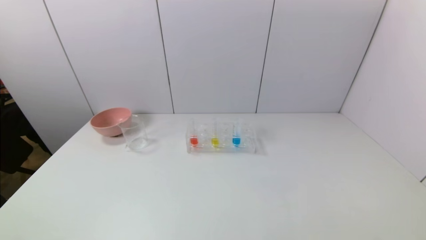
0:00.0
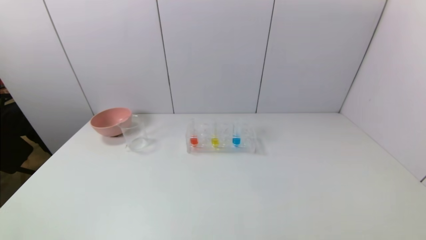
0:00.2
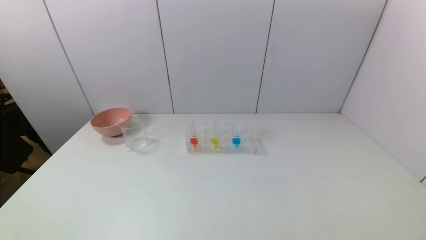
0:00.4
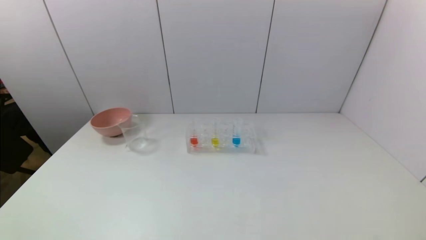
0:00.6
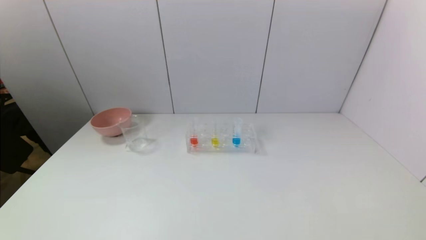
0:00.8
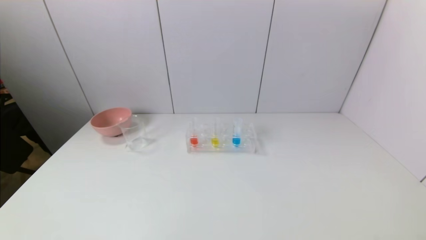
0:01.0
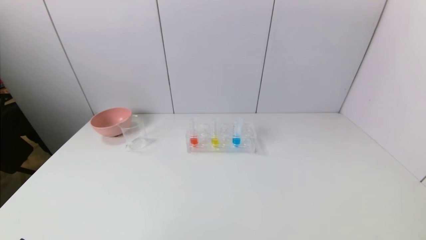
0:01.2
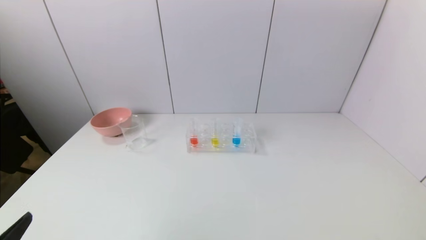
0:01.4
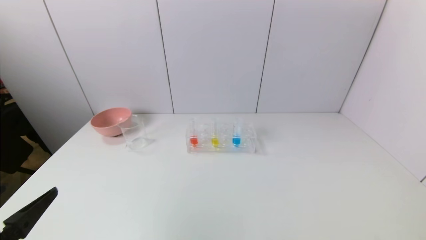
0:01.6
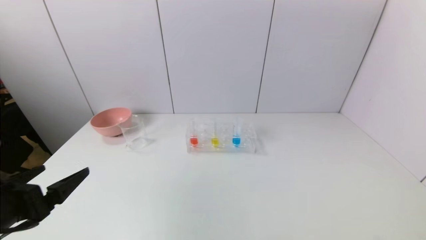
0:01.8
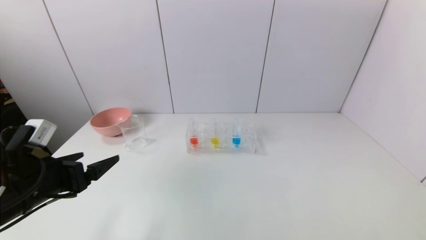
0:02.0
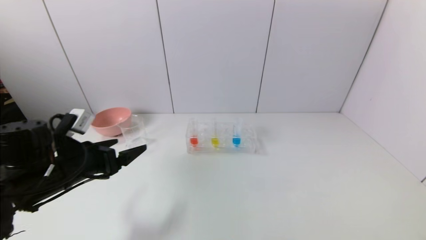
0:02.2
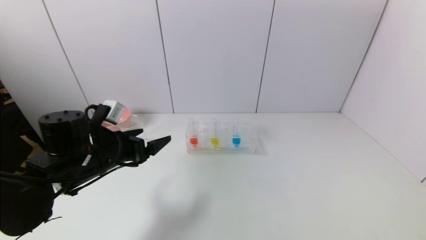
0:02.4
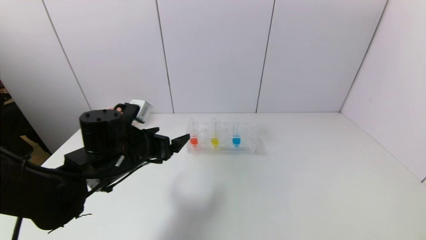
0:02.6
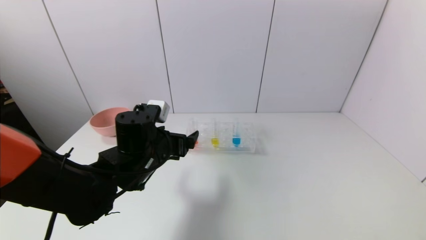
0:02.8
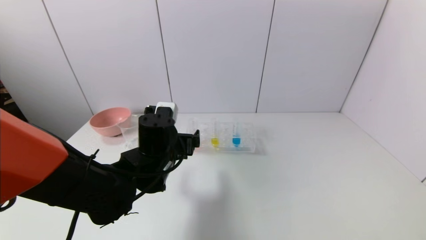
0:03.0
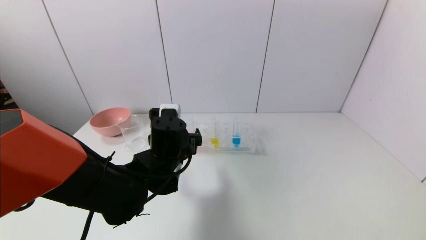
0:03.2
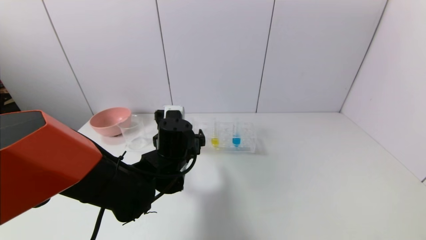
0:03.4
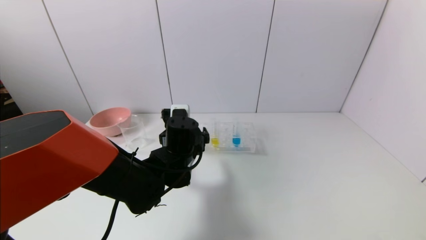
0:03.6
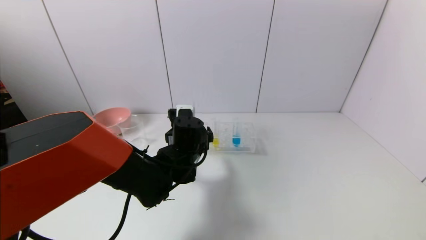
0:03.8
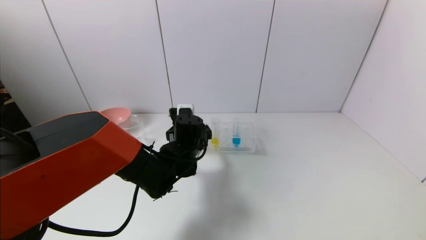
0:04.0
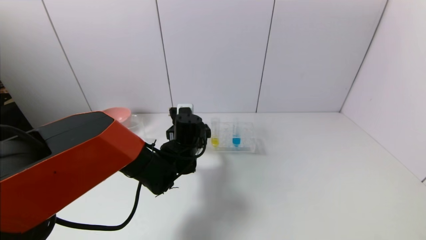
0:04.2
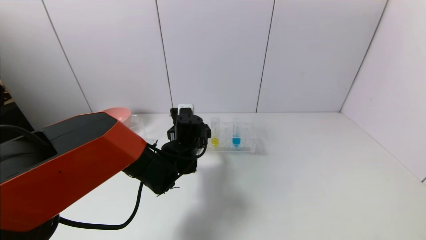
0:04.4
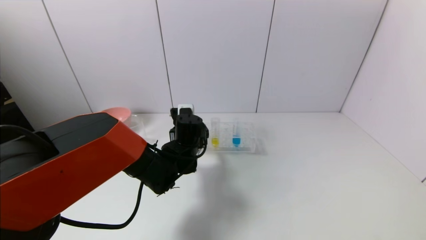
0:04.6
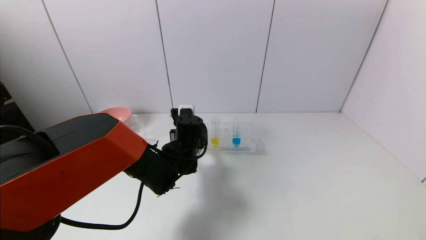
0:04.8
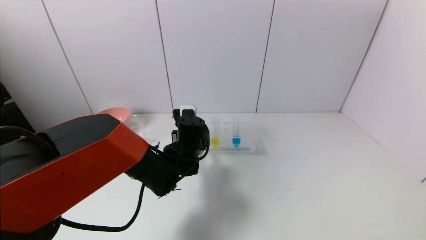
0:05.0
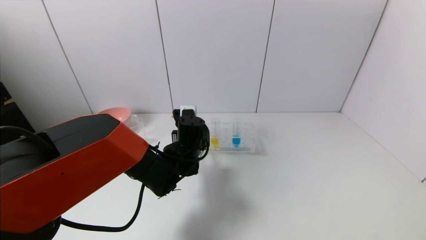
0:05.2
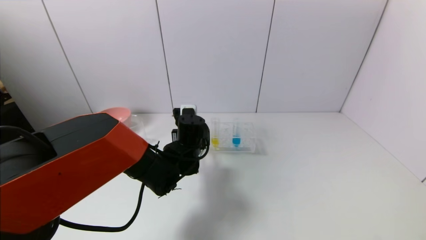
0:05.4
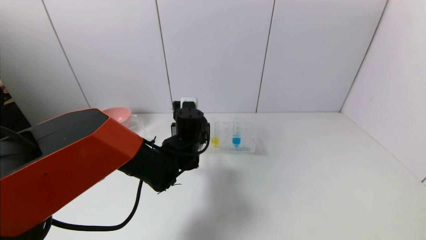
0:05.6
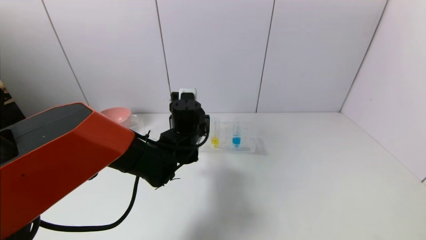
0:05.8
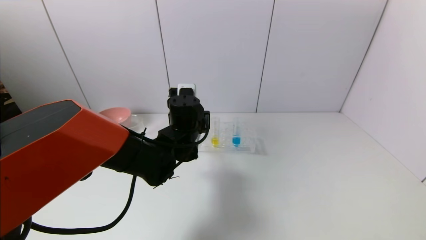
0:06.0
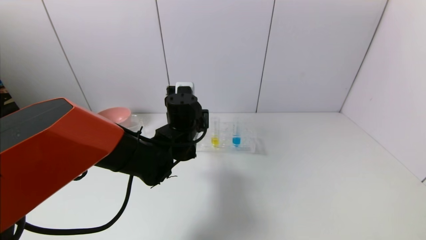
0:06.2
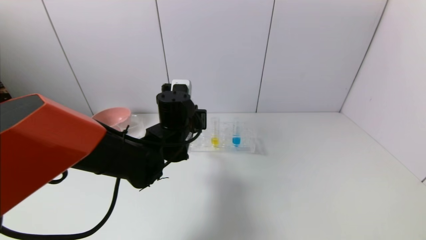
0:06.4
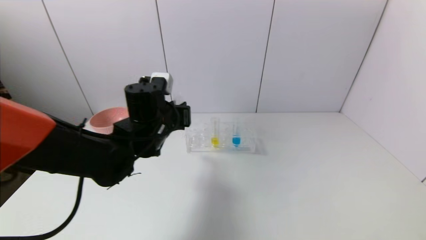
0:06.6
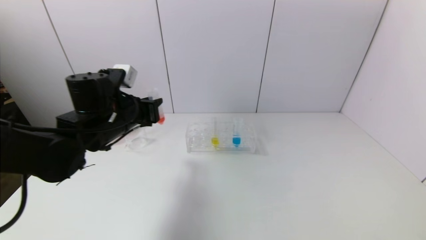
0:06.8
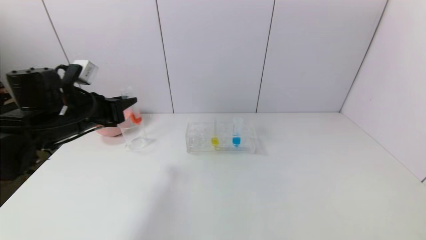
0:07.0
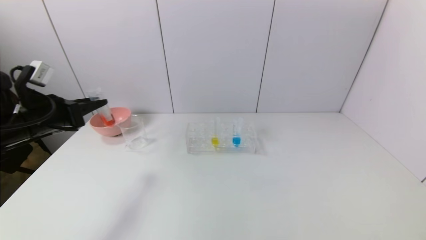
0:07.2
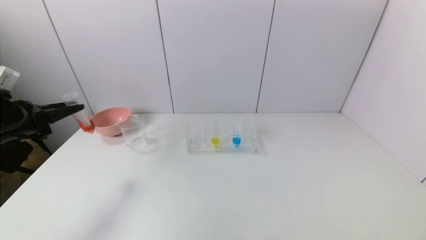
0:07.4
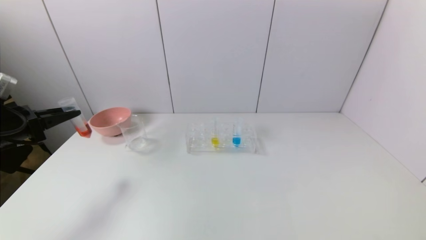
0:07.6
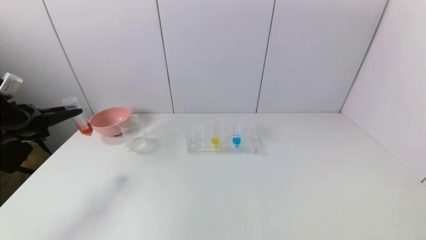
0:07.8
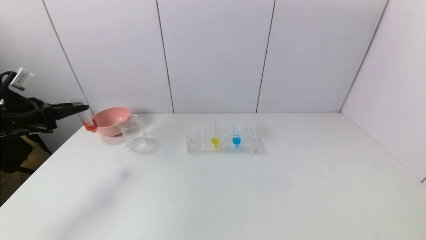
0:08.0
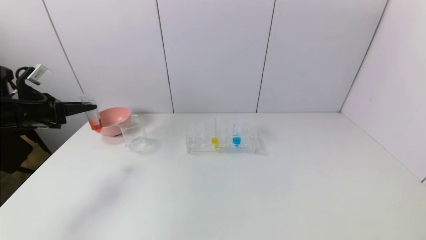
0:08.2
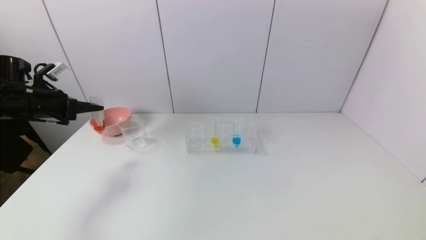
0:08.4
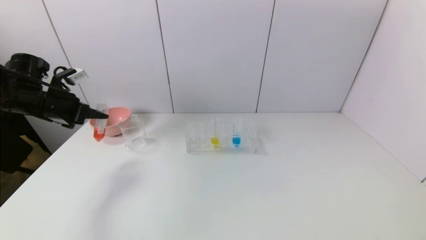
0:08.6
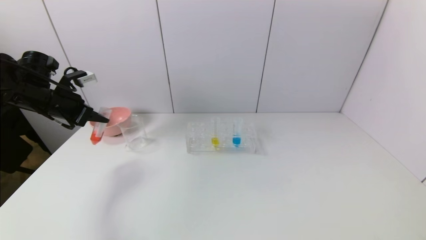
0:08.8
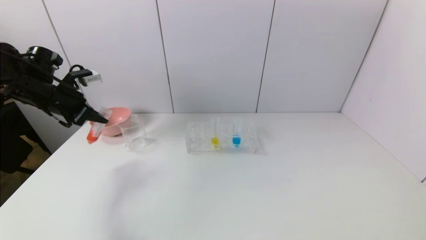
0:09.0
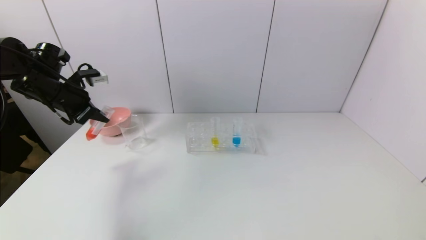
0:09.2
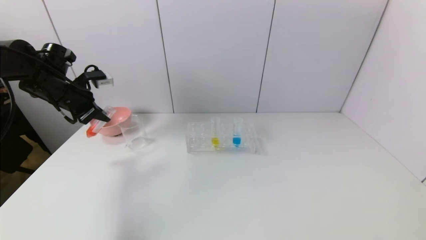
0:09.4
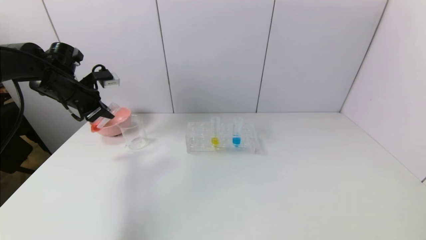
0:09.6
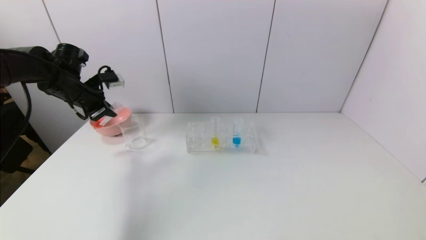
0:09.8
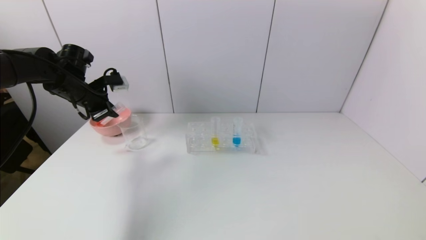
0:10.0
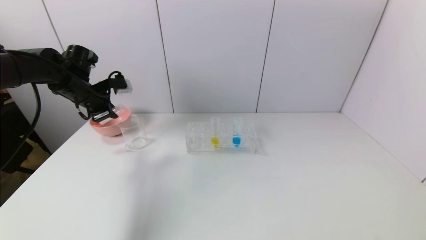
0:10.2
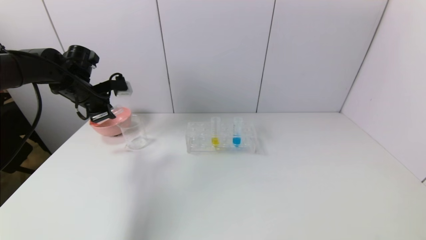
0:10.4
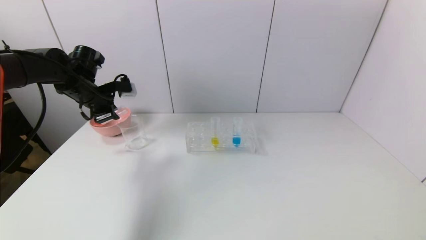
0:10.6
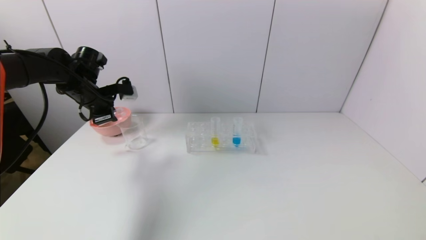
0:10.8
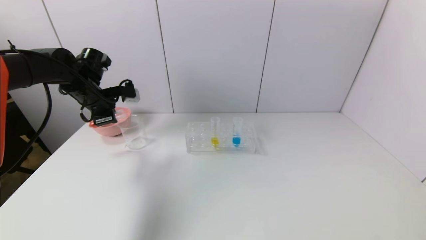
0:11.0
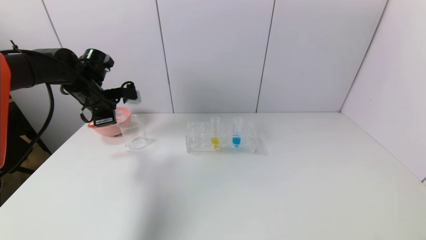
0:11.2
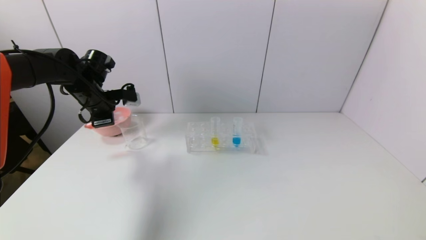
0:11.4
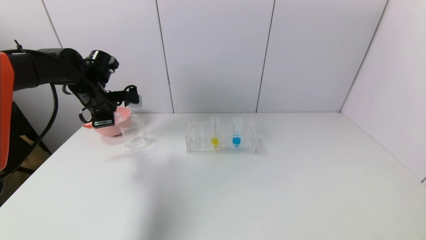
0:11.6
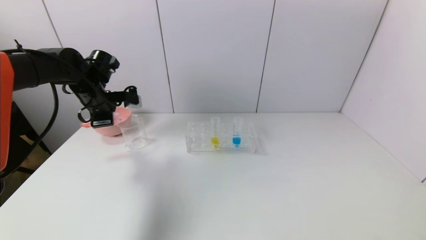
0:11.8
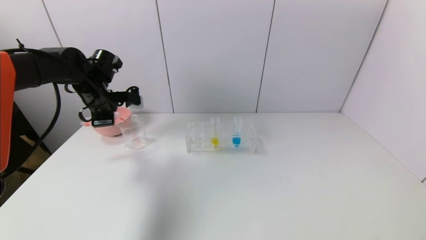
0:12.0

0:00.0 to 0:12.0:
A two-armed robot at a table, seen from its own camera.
Task of the whole recording: pick up the test tube with red pigment and the test tube with blue pigment by grippers and pour them into the container.
Step, 0:00.0 to 0:05.0: Grasp the red reagent with the left gripper.
0:00.0 to 0:01.6: The left gripper shifts about 15 cm upward and forward.
0:01.6 to 0:03.0: The left gripper goes some 30 cm forward and to the right.
0:03.0 to 0:04.4: The left gripper moves forward, some 10 cm.
0:04.4 to 0:06.0: The left gripper travels upward by roughly 5 cm, and closes its fingers.
0:06.0 to 0:07.6: The left gripper goes roughly 35 cm to the left.
0:07.6 to 0:09.0: The left gripper travels forward and to the right by roughly 10 cm.
0:09.0 to 0:10.4: The left gripper changes place by approximately 5 cm.

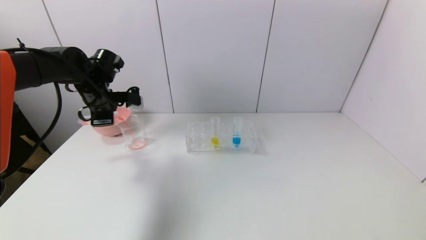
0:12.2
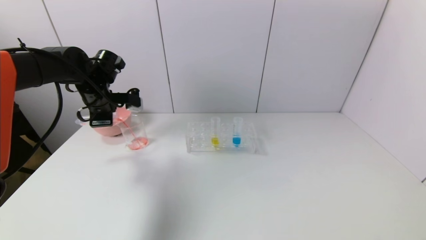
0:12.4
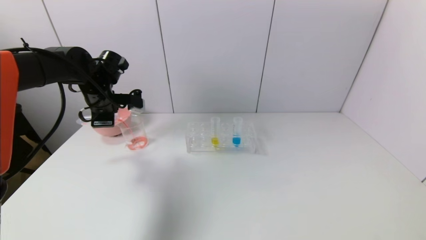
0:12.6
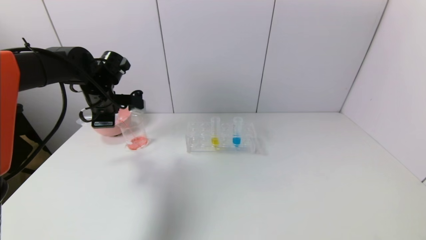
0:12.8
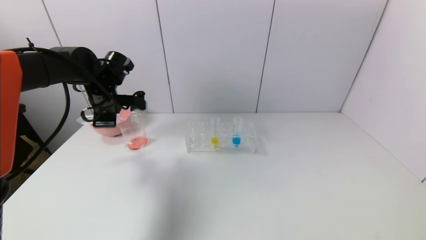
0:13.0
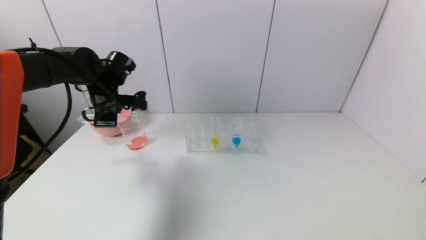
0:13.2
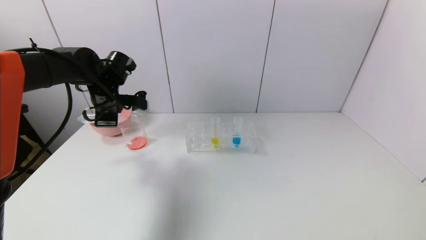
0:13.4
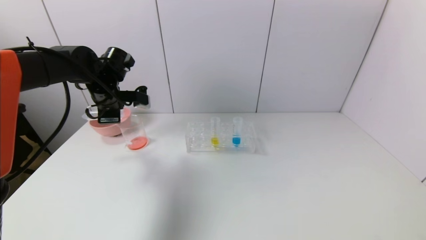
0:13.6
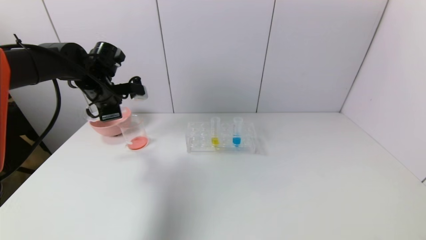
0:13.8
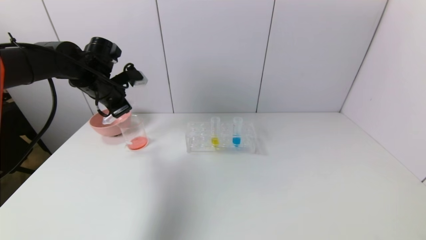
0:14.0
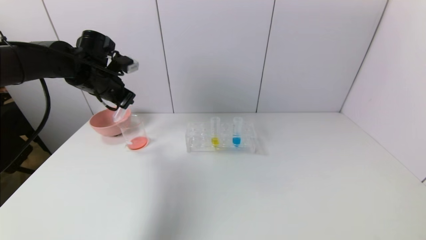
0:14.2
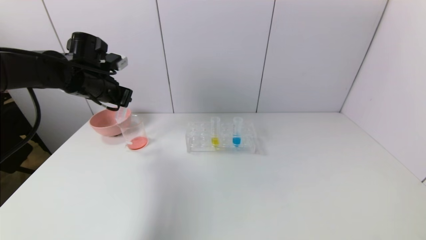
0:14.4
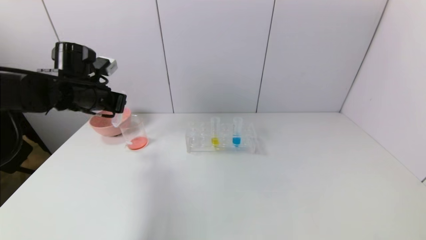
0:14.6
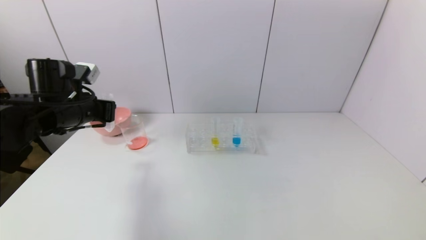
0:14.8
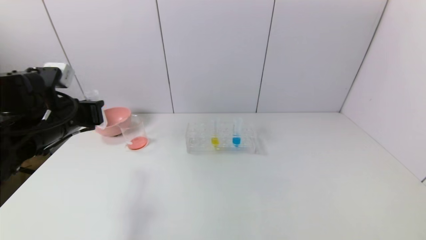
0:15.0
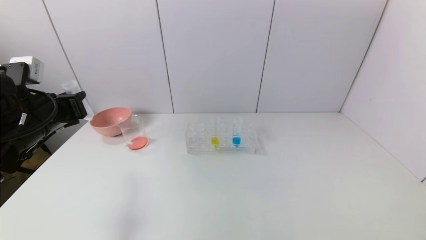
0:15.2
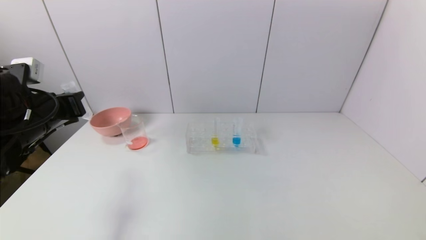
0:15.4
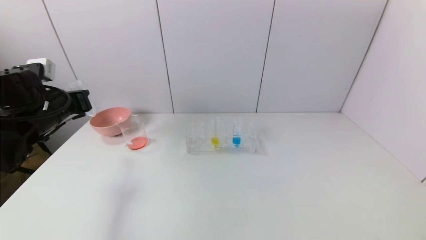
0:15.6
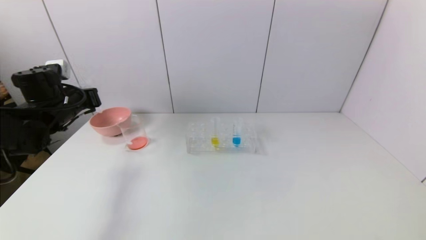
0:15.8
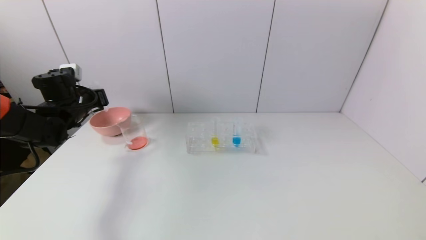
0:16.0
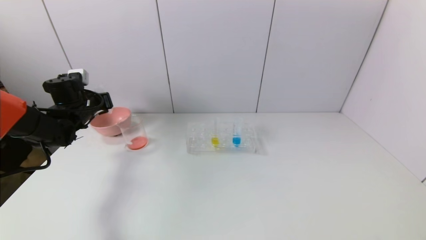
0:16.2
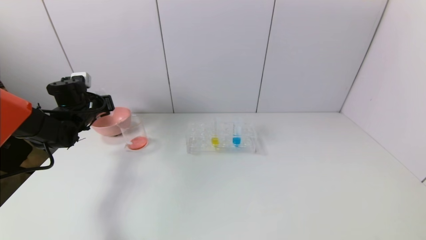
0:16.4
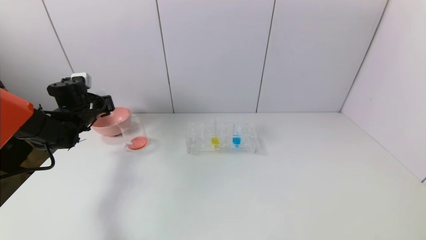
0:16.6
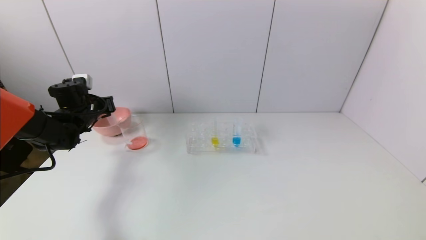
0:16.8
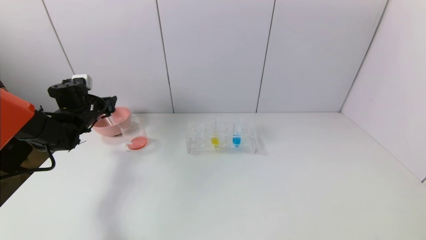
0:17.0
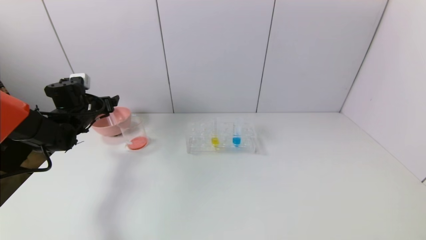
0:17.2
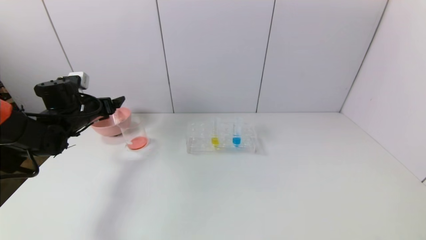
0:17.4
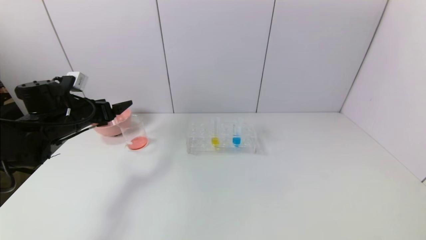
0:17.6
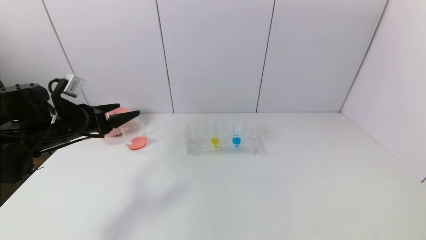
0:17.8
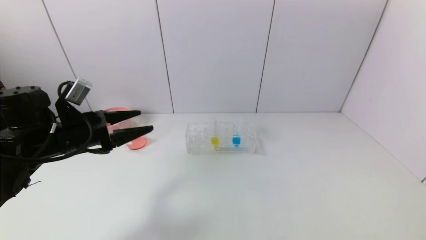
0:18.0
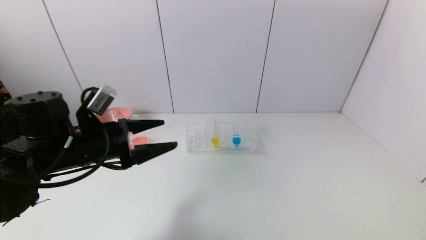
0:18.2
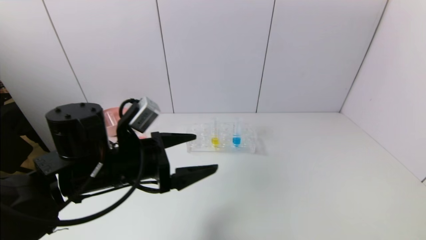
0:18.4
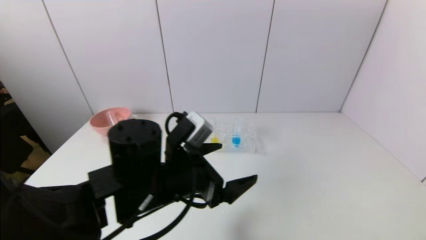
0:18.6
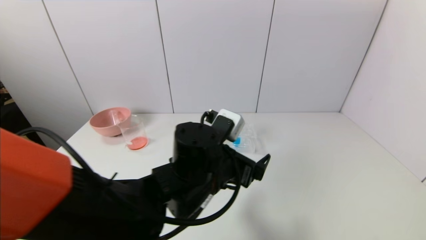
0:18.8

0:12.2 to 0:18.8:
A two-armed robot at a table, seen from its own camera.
Task of the whole recording: pick up the test tube with red pigment and the test tube with blue pigment by grippers and pour them into the container.
Step, 0:13.8 to 0:17.0: Place the test tube into the bowl with the left gripper.
0:12.2 to 0:13.8: There are only small adjustments of the grippers.
0:13.8 to 0:15.4: The left gripper shifts some 15 cm backward and to the left.
0:15.4 to 0:17.2: The left gripper travels forward and downward by roughly 15 cm, and opens its fingers.
0:17.2 to 0:18.8: The left gripper moves to the right and backward, some 40 cm.
